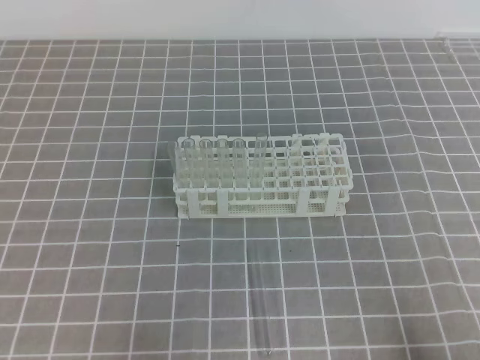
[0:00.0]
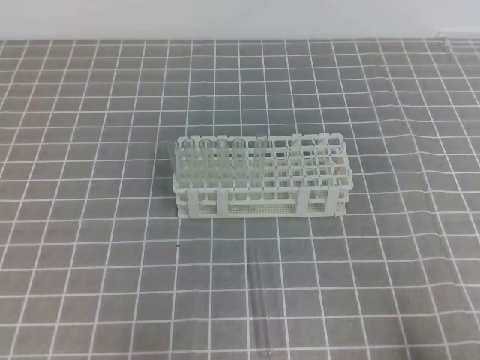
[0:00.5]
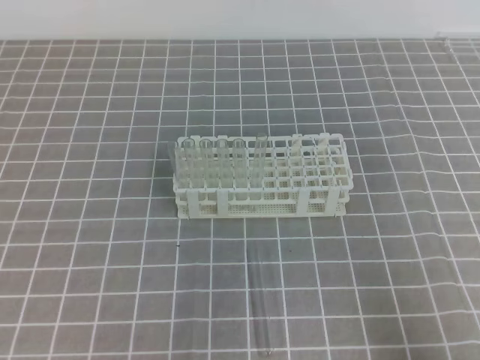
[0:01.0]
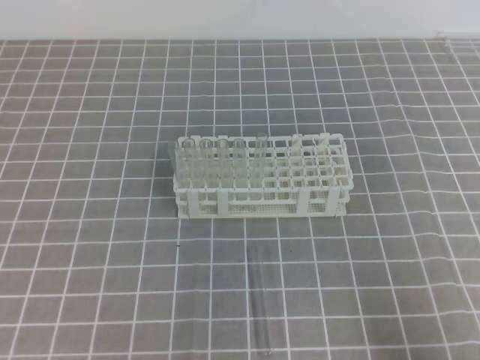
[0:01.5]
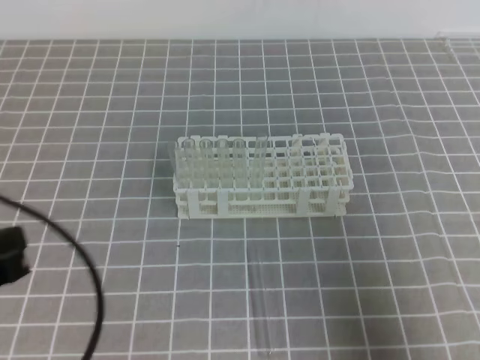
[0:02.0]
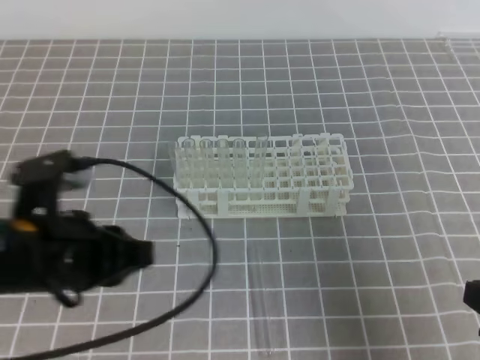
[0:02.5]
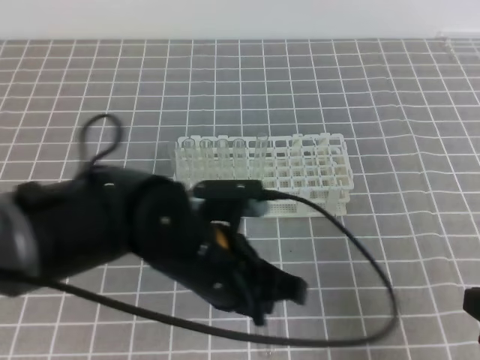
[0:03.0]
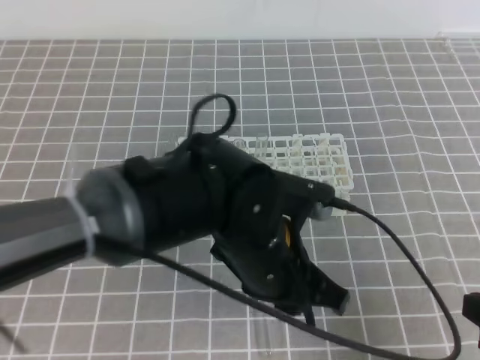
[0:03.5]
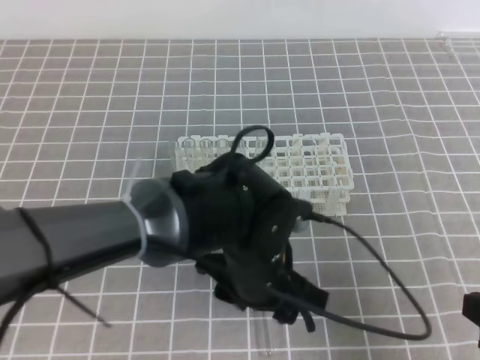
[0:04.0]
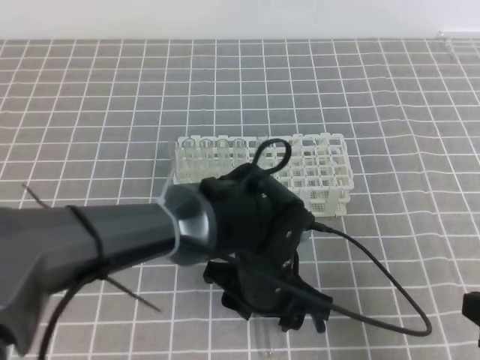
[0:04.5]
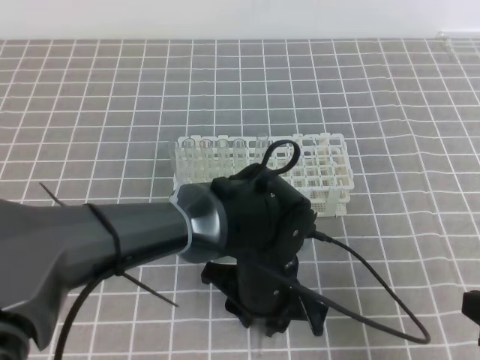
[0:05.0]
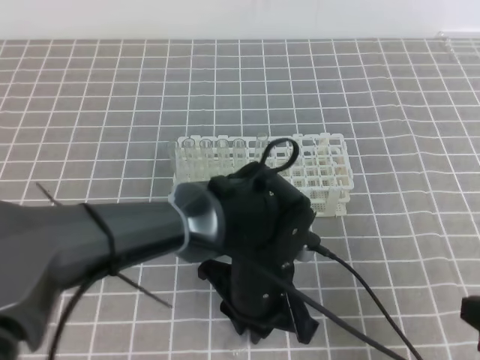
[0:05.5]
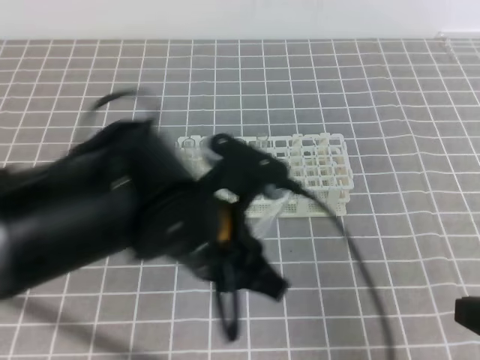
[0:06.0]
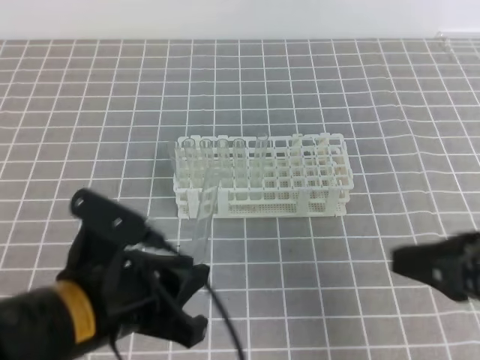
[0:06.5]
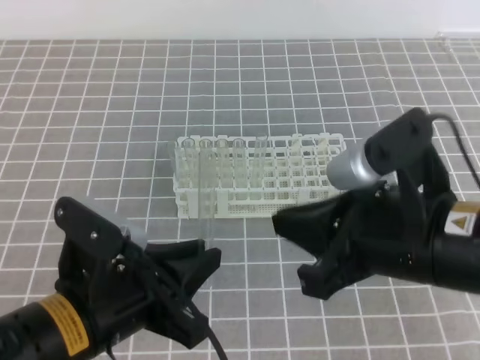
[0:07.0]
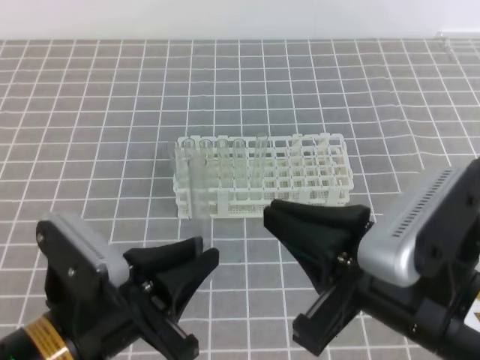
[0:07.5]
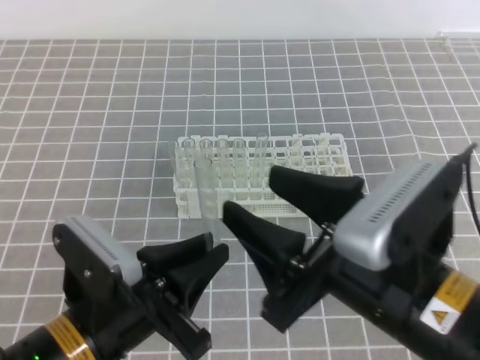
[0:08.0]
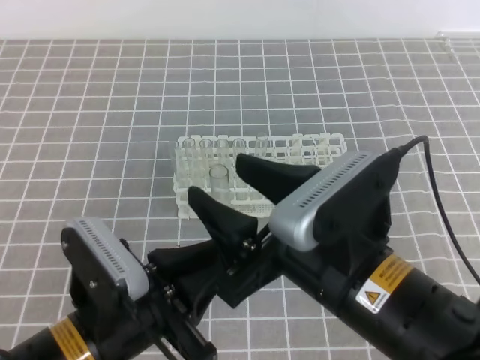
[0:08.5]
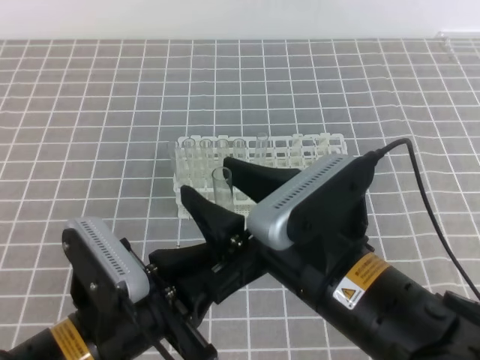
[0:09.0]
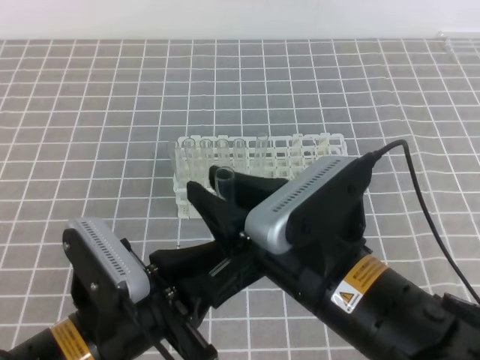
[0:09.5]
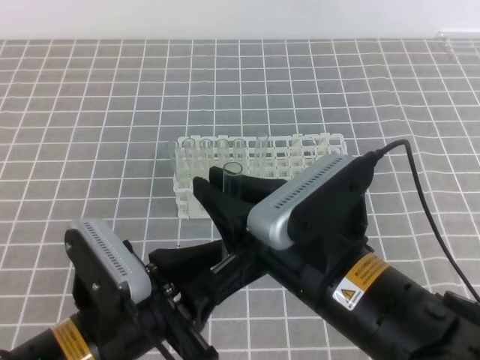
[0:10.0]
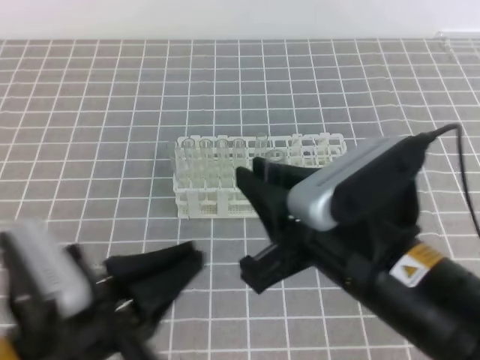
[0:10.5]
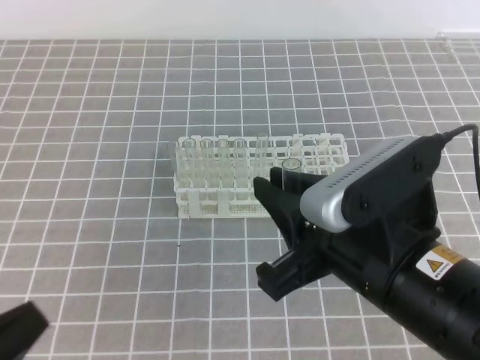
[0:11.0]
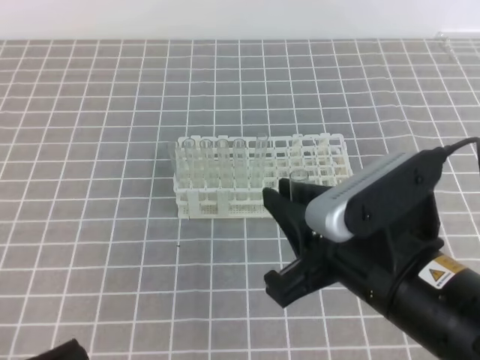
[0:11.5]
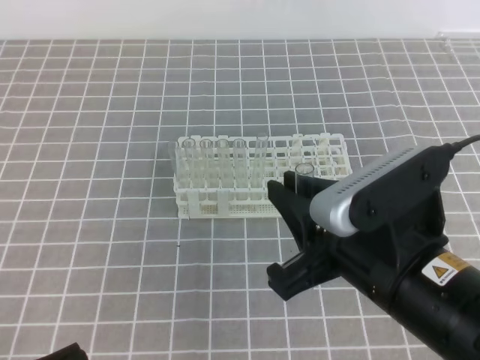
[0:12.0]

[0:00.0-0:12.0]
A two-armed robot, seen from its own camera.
0:00.0 to 0:02.0: The left gripper is displaced upward and forward by some 15 cm. The right gripper heads upward, covering approximately 5 cm.
0:02.0 to 0:04.0: The left gripper travels to the right by approximately 25 cm, and opens its fingers.
0:04.0 to 0:06.0: The left gripper is displaced upward and to the left by approximately 10 cm, and closes its fingers.
0:06.0 to 0:08.0: The left gripper is displaced to the left, backward and downward by about 10 cm; the right gripper travels to the left by roughly 15 cm, and opens up.
0:08.0 to 0:10.0: The right gripper shifts by about 5 cm, and closes.
0:10.0 to 0:12.0: The left gripper shifts approximately 15 cm to the left and backward, and closes.

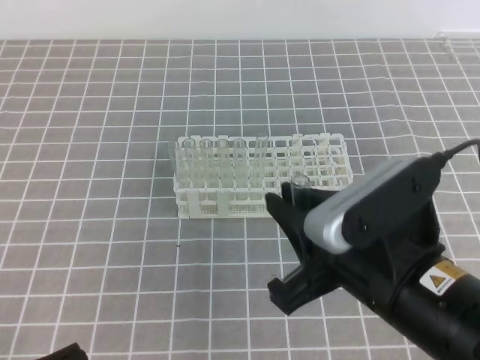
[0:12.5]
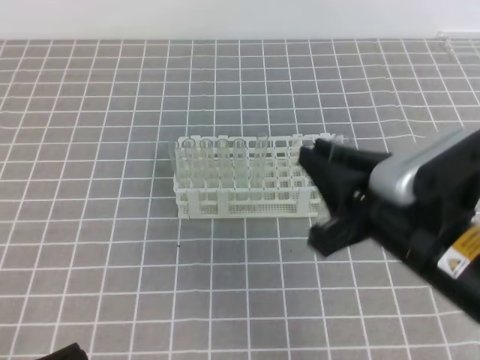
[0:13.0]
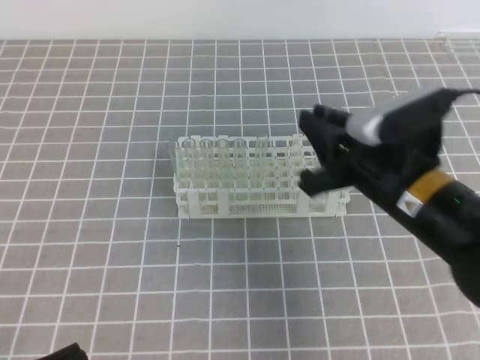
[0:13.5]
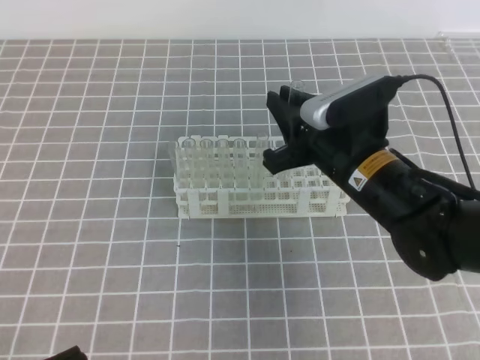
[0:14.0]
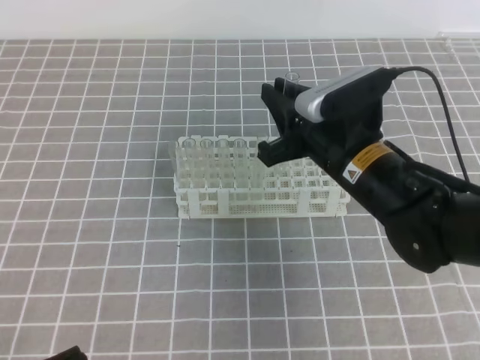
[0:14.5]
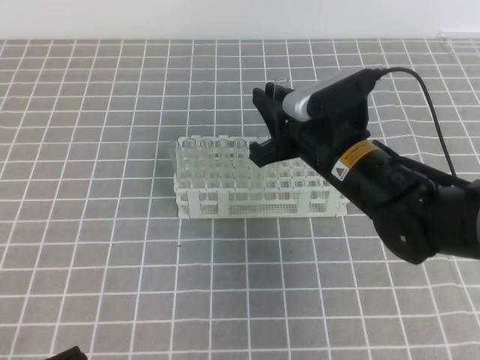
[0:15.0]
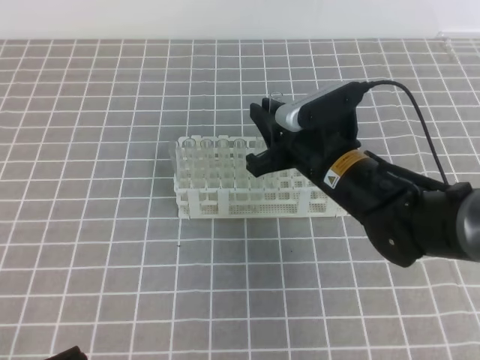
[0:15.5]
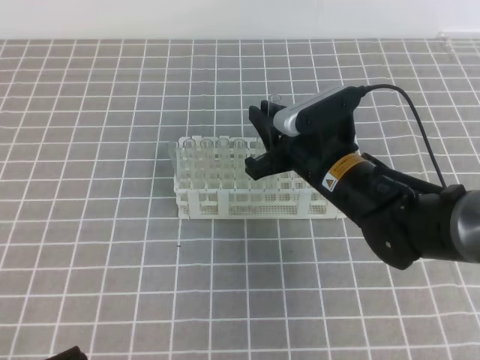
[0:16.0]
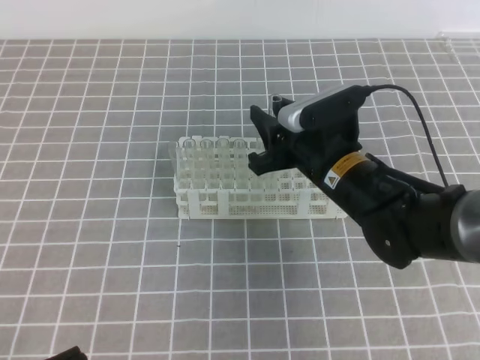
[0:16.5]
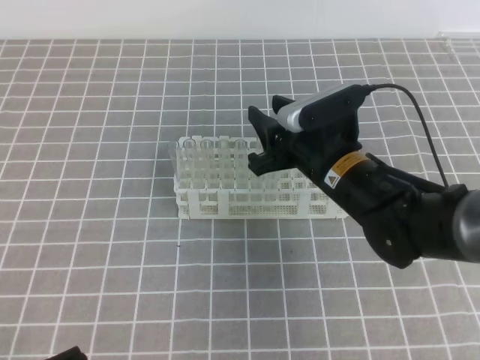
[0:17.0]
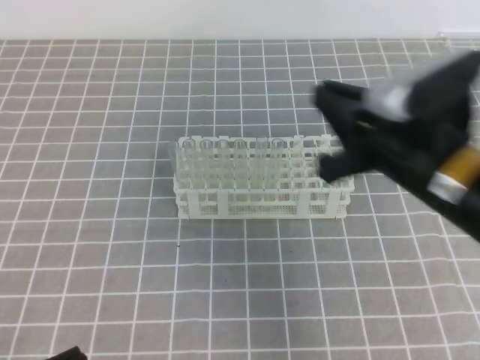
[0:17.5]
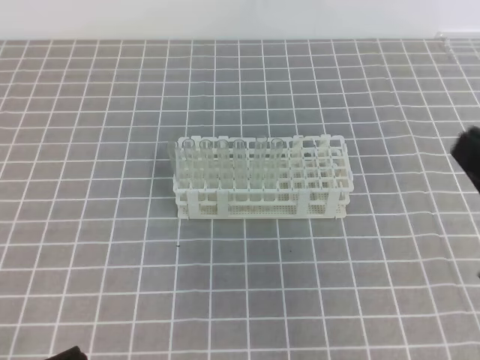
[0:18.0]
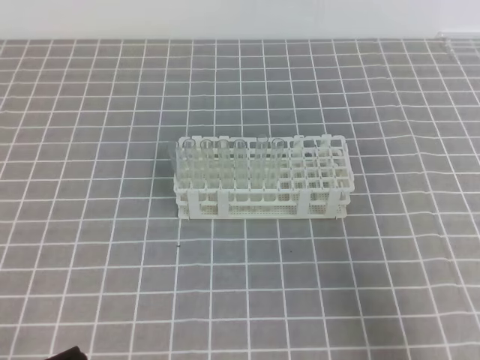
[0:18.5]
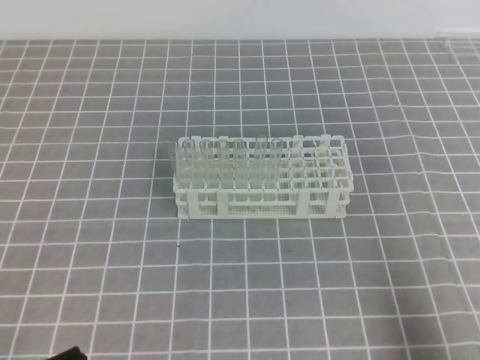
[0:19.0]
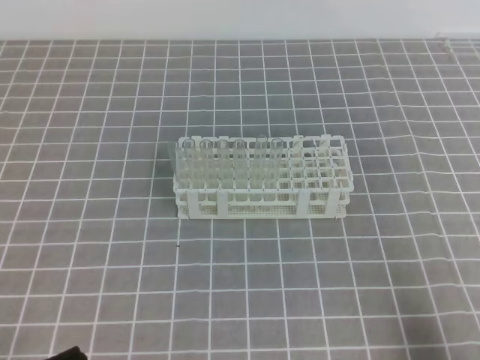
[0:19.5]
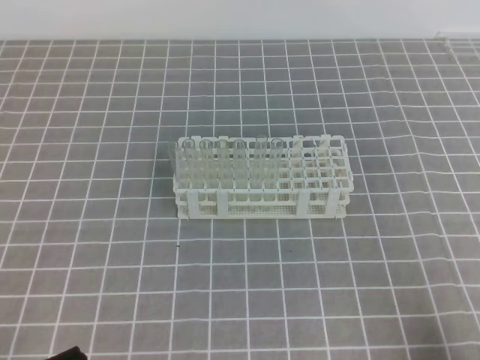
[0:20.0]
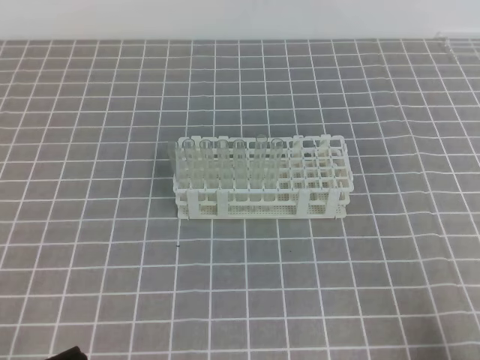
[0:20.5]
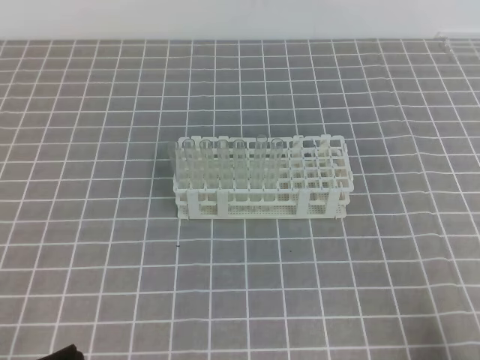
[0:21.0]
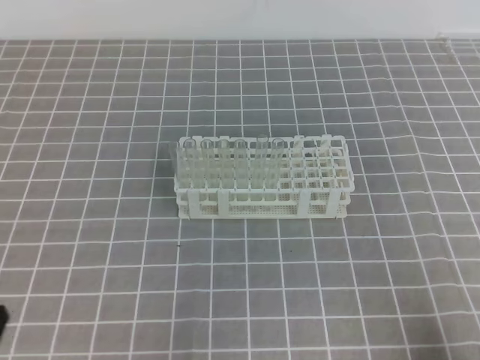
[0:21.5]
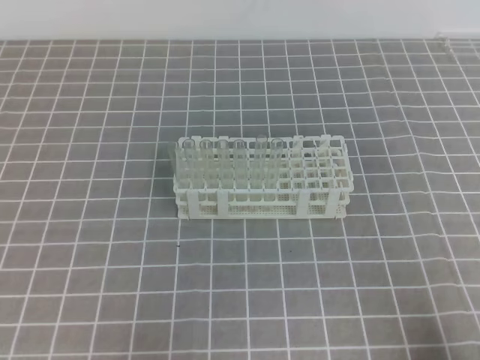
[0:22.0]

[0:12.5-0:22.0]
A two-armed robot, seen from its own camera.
0:12.5 to 0:14.5: The right gripper heads forward, covering about 15 cm.
0:14.5 to 0:16.5: The grippers stay close to where they were, moving slightly.
0:16.5 to 0:18.0: The right gripper goes about 25 cm backward, to the right and upward, and closes up.
0:18.0 to 0:20.0: The right gripper moves downward, to the right and backward, some 20 cm.
